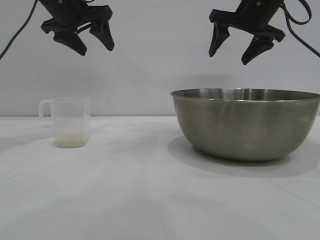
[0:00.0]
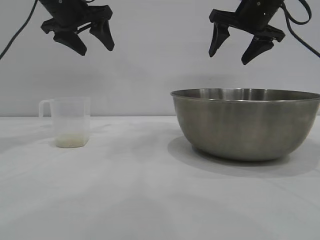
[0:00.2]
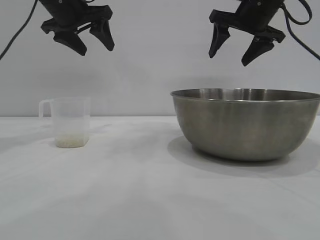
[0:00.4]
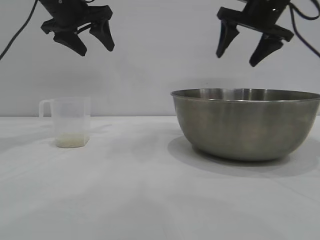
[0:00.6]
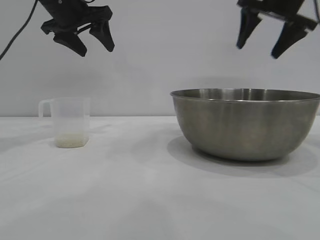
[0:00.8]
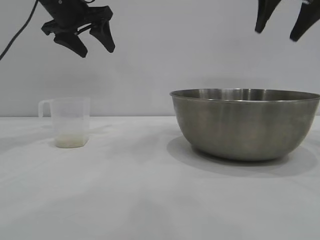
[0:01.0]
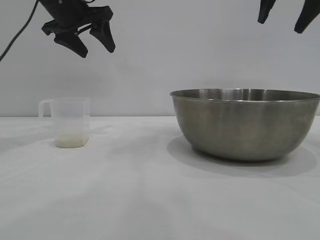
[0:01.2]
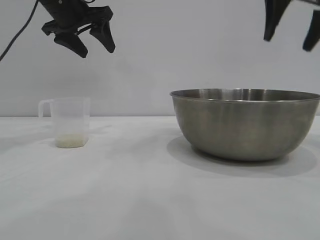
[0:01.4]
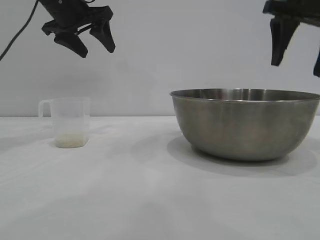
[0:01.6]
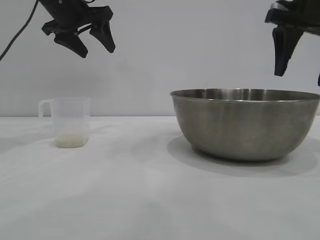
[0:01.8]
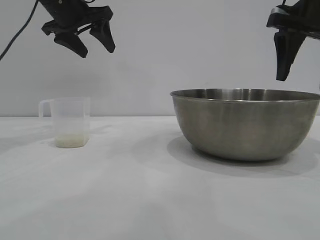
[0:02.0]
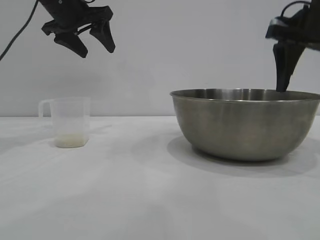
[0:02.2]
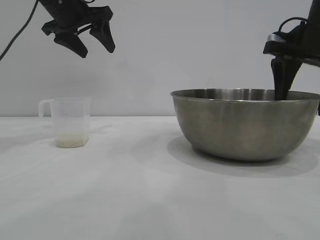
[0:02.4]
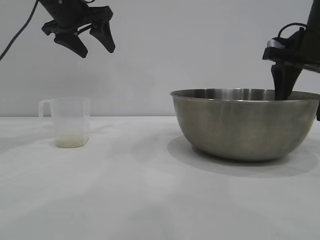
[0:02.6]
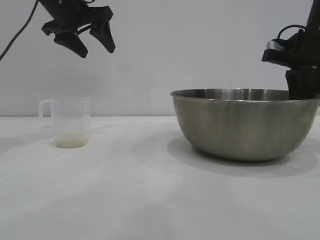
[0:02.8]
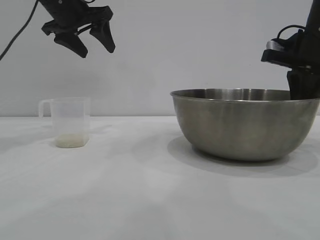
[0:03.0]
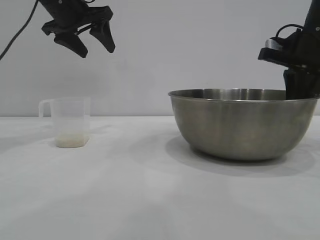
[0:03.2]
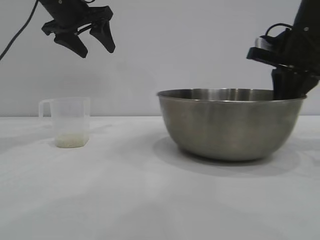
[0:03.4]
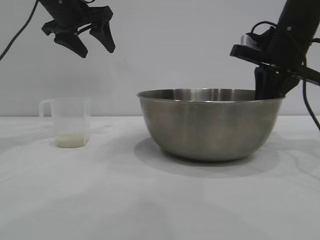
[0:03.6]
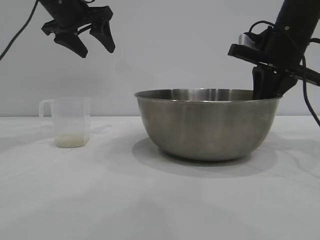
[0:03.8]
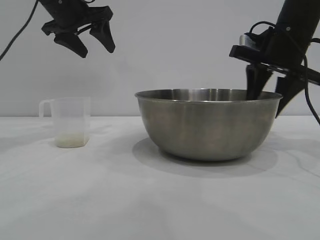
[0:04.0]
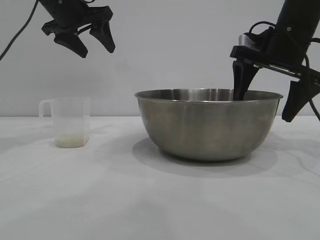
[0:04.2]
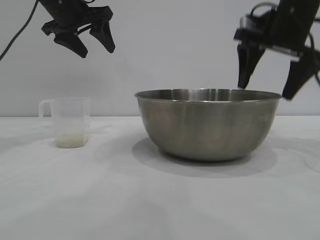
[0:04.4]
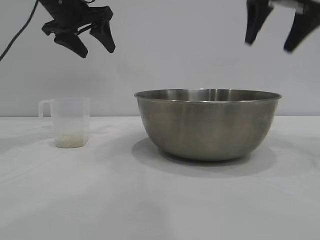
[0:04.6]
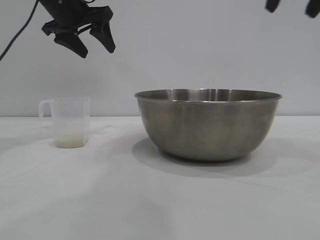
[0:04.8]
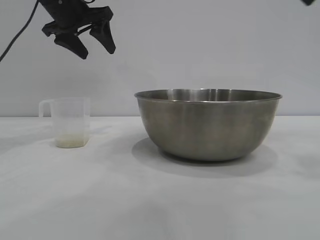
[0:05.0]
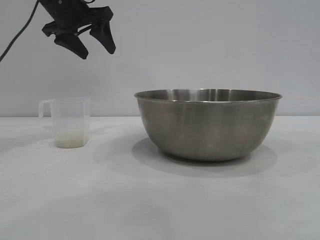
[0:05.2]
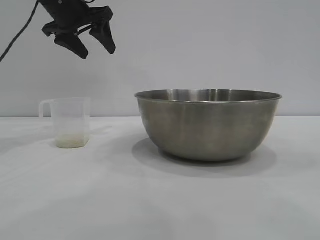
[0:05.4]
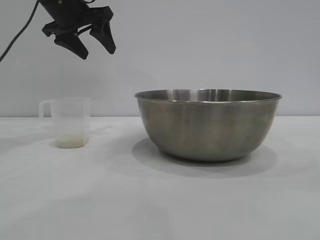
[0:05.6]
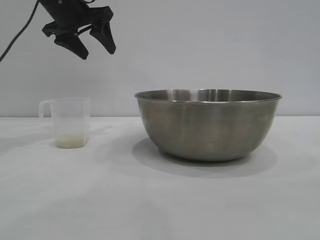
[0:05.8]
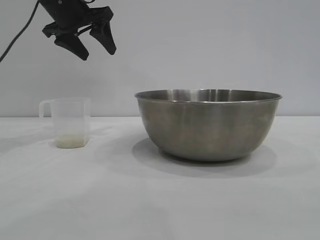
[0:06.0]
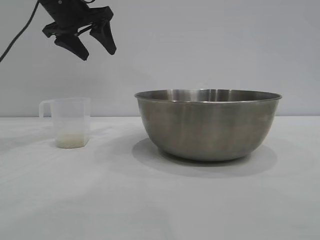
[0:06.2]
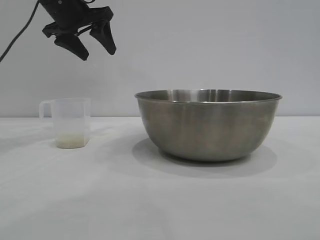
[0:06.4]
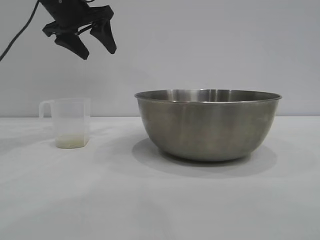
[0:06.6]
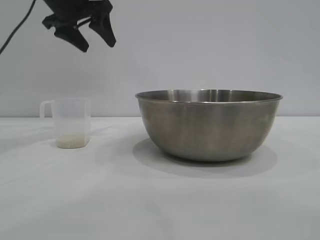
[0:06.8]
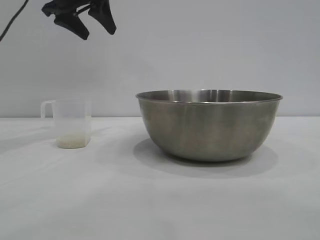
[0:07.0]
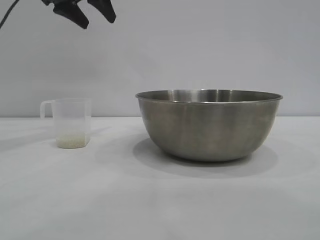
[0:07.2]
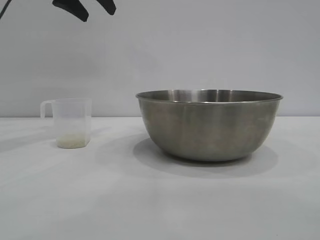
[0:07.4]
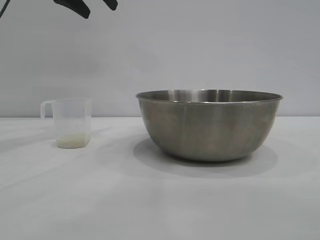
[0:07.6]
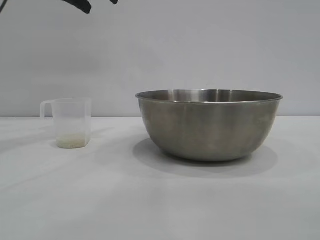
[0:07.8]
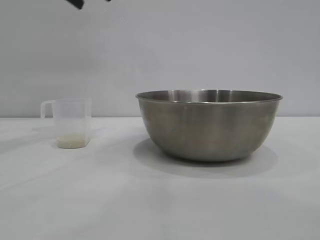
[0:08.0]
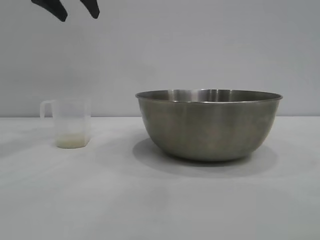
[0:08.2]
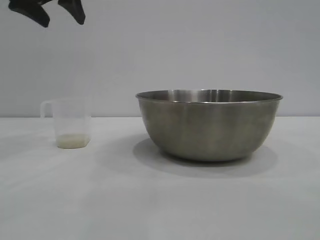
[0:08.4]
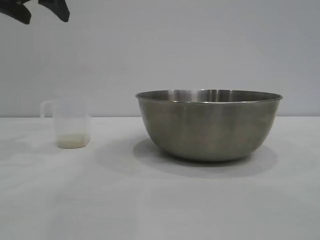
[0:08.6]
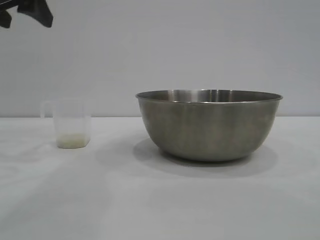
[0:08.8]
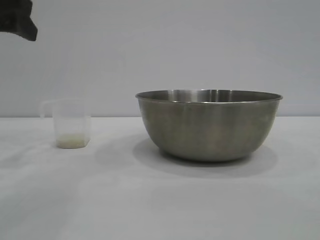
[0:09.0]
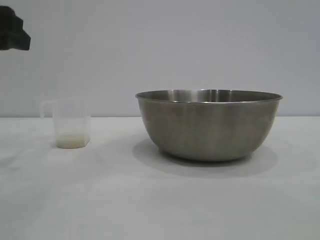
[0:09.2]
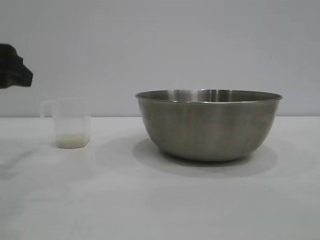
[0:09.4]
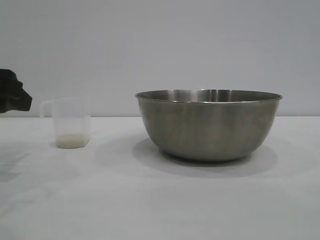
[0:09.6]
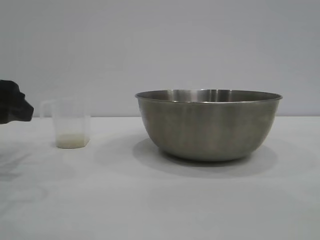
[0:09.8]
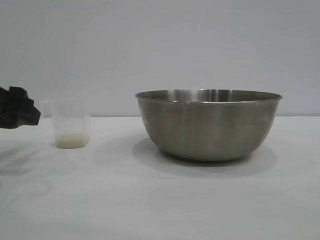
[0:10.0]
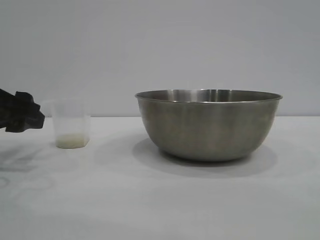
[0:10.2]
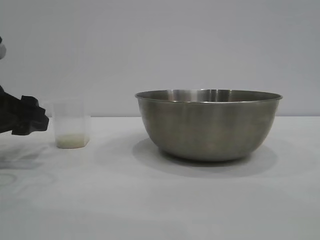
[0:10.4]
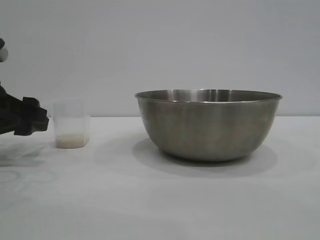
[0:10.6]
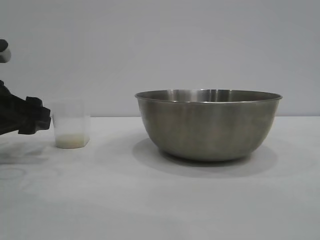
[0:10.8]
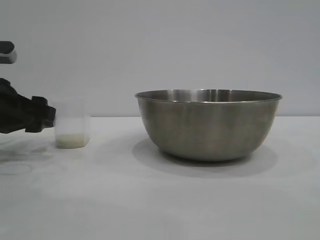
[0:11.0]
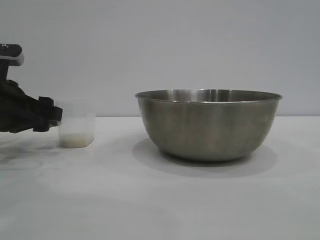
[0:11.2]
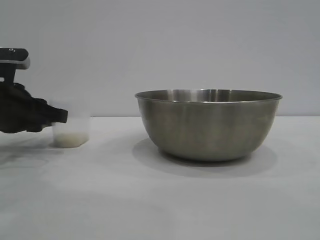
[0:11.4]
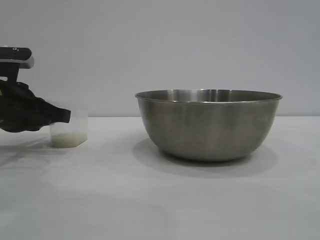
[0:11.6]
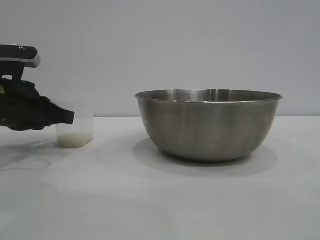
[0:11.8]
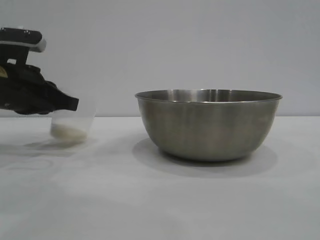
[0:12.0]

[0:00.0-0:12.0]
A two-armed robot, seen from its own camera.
Task of the whole recording: the right gripper grasp the rice container and place it in the center of the table, the left gripper grasp the rice scoop and pour the rice into the rice container.
Step, 0:00.0 to 0:04.4: Move the bowl to the center of view with the right gripper.

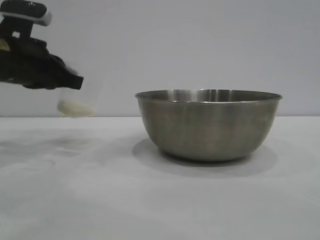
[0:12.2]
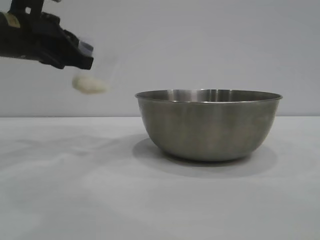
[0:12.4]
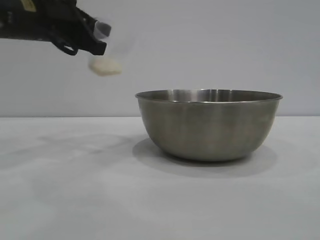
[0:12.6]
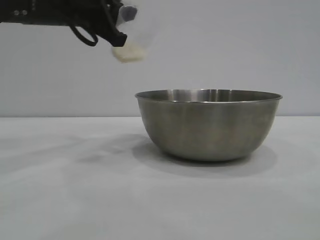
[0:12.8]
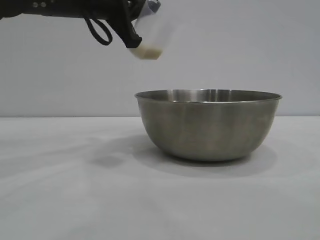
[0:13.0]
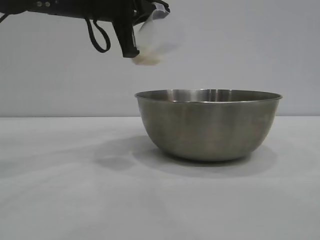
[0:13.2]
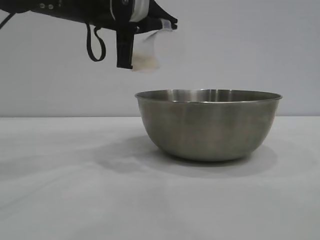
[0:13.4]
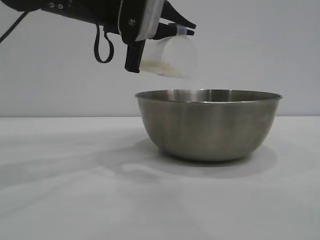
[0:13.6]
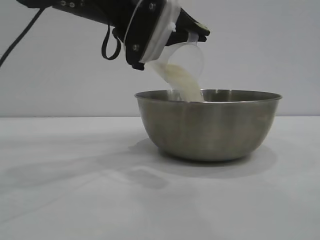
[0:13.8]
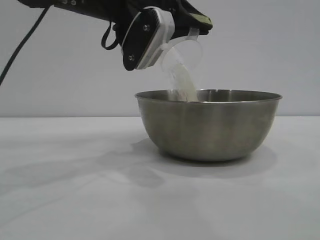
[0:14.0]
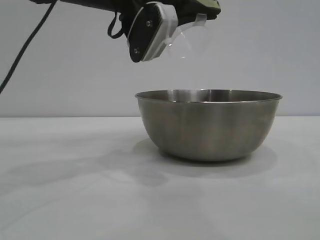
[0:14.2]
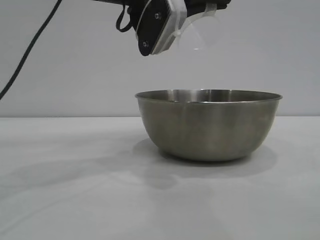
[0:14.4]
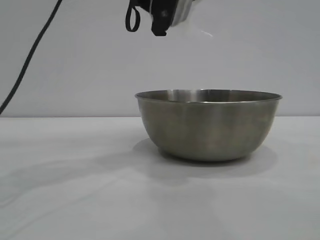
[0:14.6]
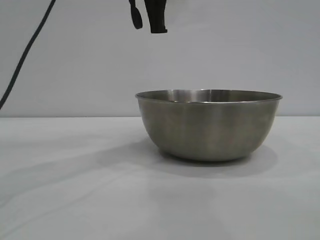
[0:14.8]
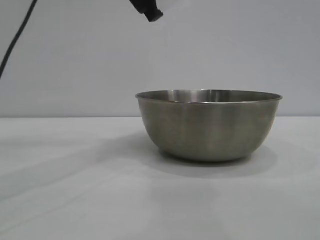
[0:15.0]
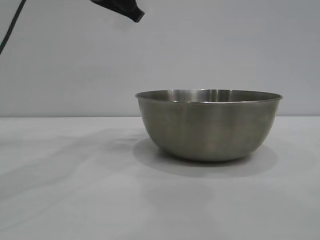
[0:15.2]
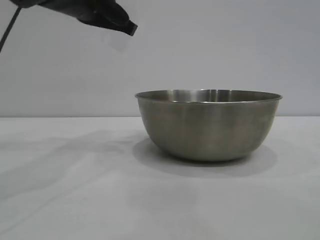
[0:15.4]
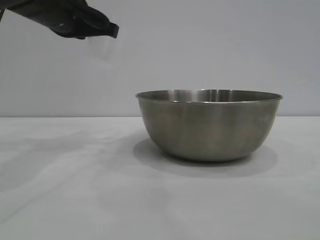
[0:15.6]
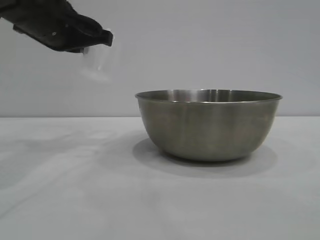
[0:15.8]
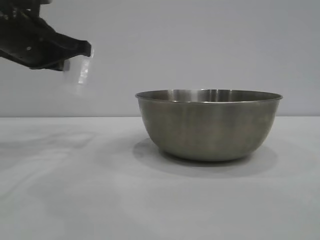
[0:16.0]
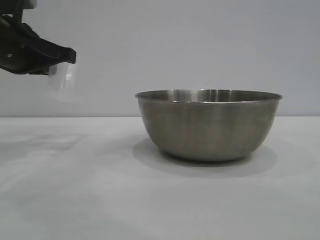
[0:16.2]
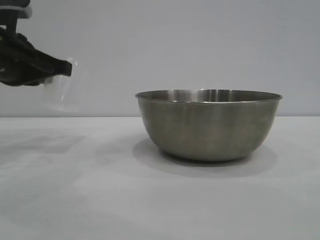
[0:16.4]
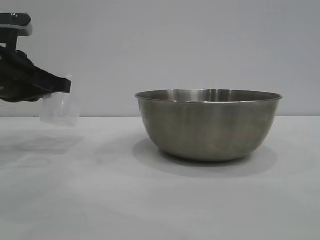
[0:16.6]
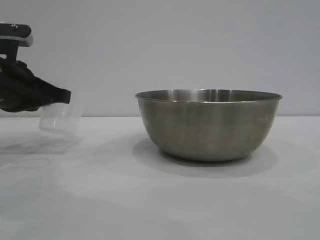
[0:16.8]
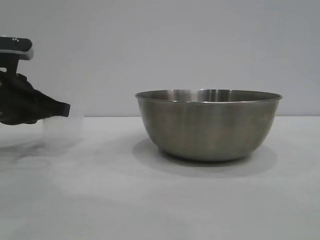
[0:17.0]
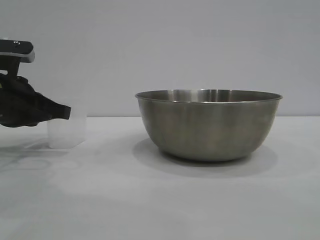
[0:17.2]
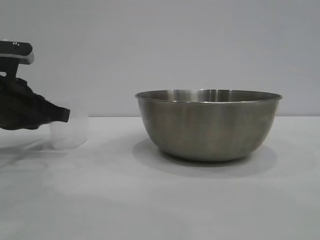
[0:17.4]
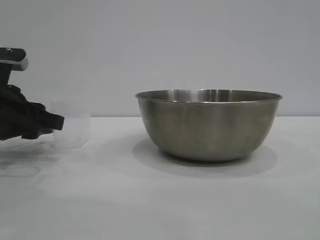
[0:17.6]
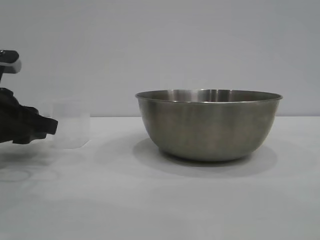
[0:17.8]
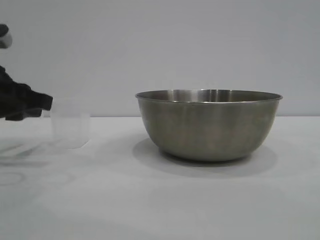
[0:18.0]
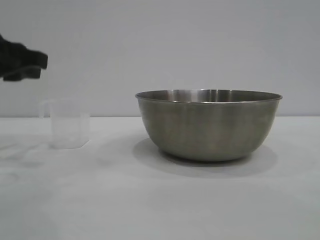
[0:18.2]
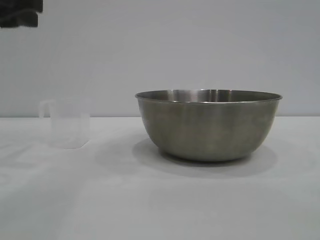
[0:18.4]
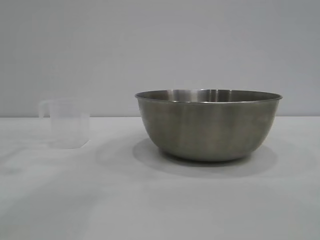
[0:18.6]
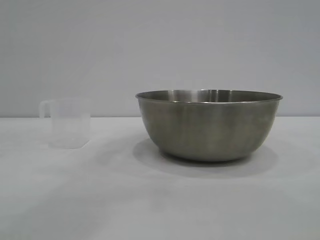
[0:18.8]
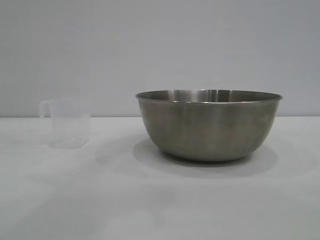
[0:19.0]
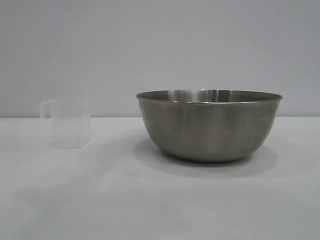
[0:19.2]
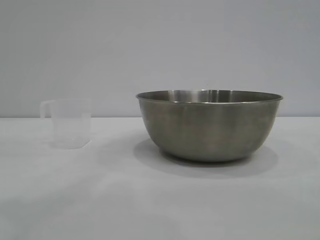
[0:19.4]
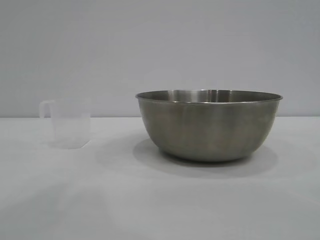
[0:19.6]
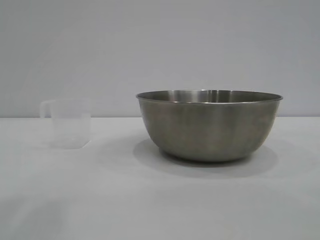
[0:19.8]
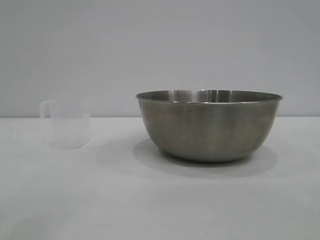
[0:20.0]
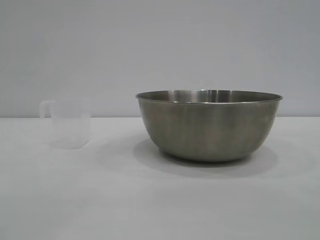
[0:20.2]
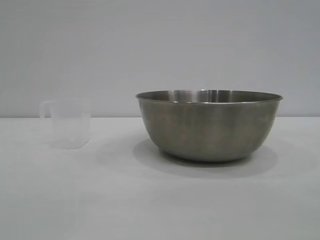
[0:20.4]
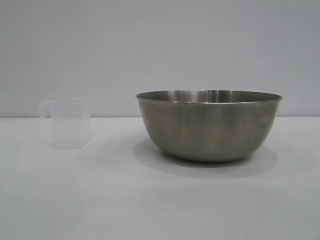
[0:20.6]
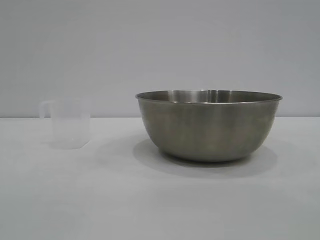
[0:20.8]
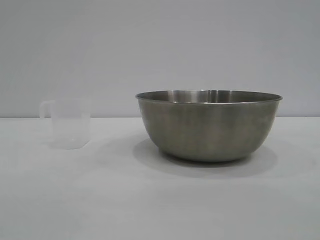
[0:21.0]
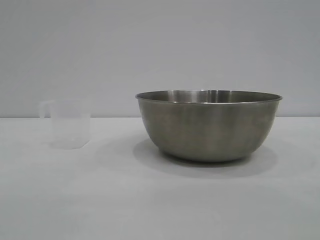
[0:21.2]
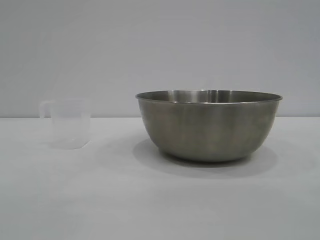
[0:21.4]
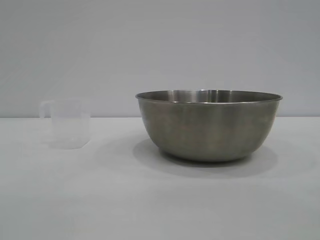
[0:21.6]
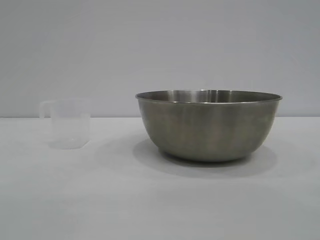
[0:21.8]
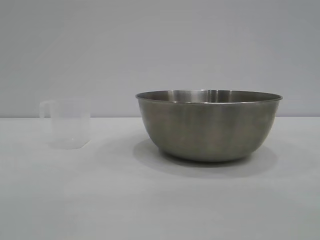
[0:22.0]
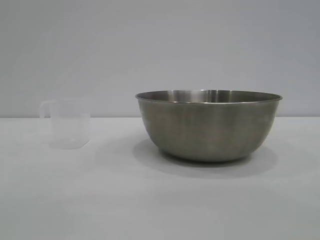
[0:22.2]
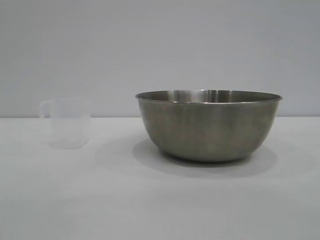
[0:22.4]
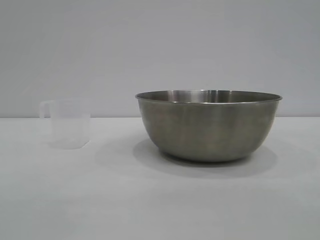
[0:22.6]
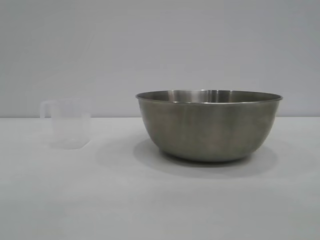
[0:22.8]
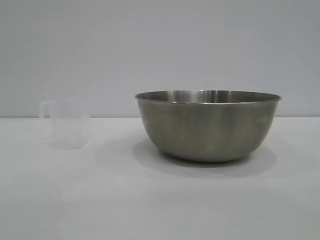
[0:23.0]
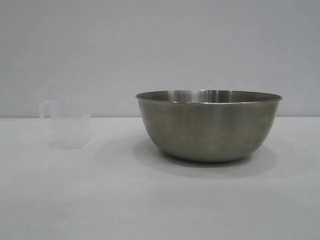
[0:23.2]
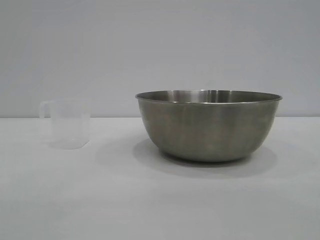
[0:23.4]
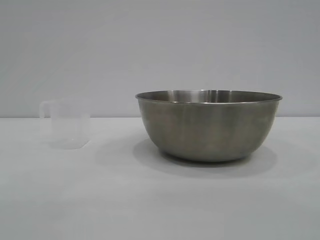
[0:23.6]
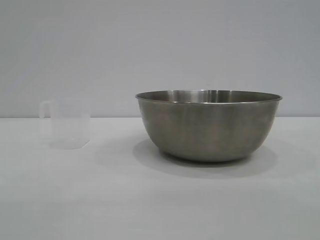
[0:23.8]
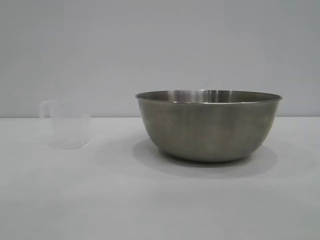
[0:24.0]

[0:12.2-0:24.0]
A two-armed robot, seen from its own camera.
Task of the whole recording: the right gripper grasp the rice container and place it in the center of the table, the left gripper grasp the rice scoop and pour the rice into the rice container.
Step, 0:12.2 to 0:14.0: Pour the rice from the cup into the bowl with the left gripper.
Step, 0:14.2 to 0:18.0: Place the cup on the table with the left gripper.
